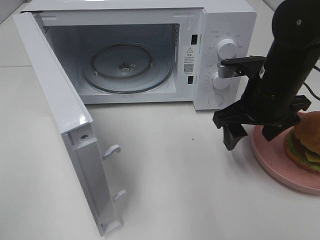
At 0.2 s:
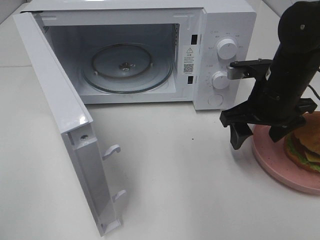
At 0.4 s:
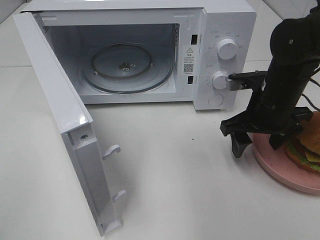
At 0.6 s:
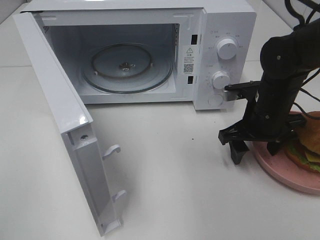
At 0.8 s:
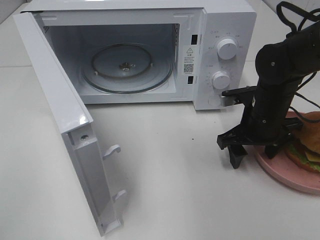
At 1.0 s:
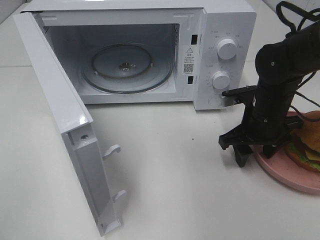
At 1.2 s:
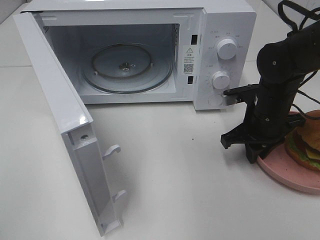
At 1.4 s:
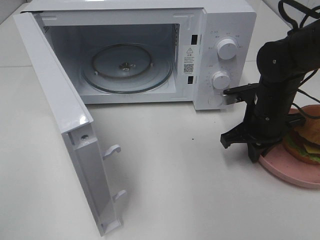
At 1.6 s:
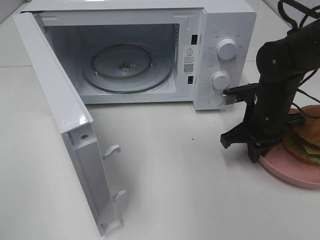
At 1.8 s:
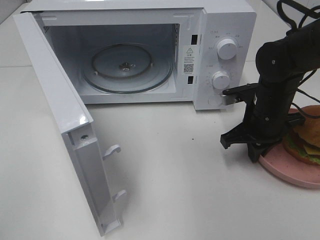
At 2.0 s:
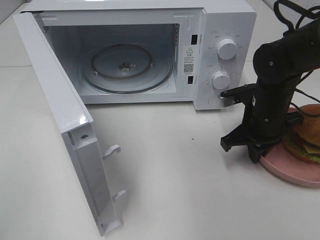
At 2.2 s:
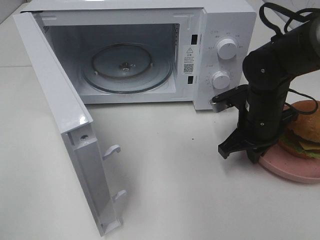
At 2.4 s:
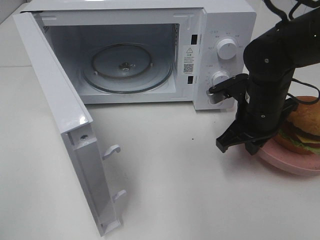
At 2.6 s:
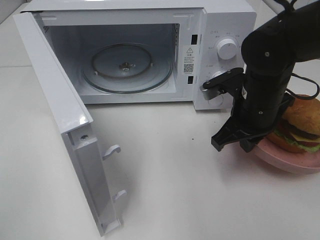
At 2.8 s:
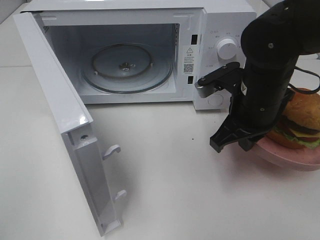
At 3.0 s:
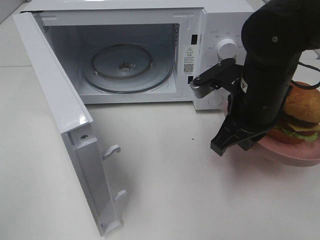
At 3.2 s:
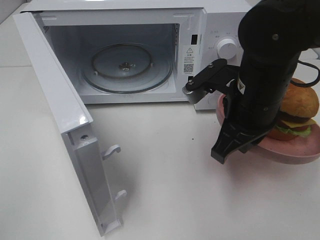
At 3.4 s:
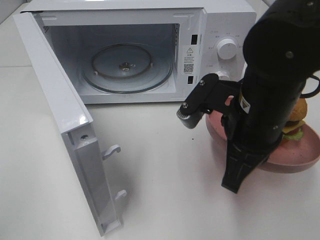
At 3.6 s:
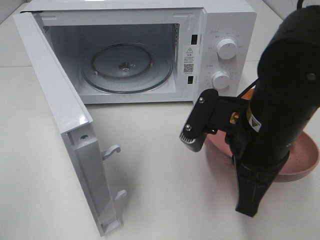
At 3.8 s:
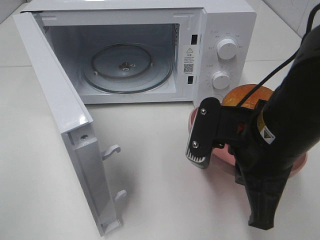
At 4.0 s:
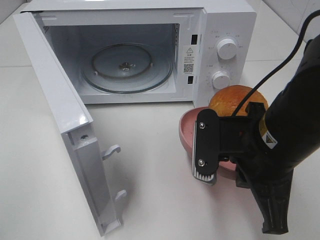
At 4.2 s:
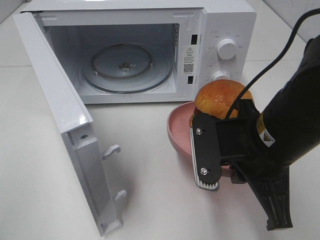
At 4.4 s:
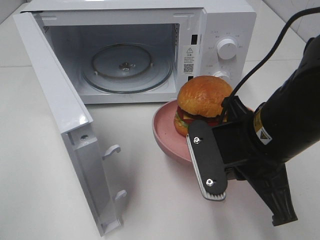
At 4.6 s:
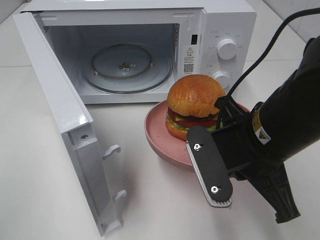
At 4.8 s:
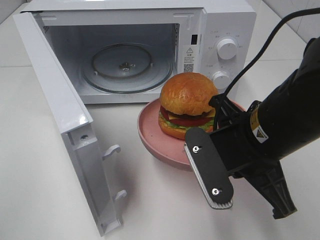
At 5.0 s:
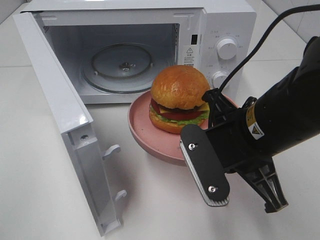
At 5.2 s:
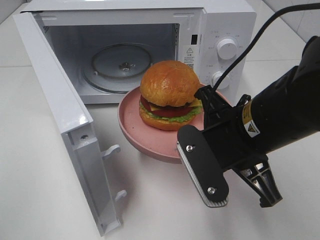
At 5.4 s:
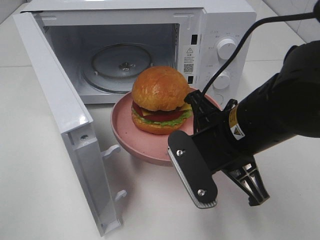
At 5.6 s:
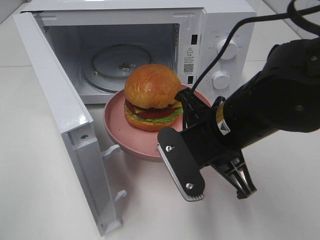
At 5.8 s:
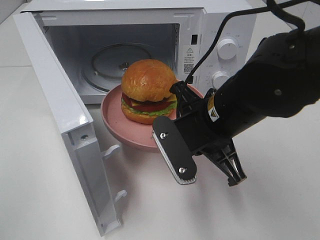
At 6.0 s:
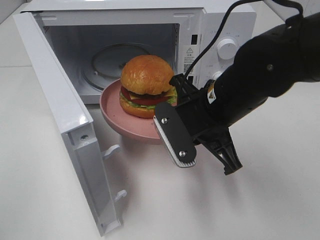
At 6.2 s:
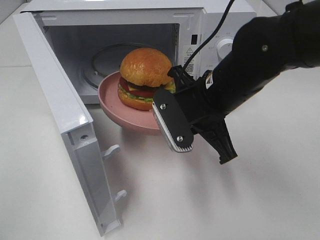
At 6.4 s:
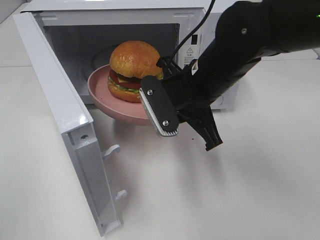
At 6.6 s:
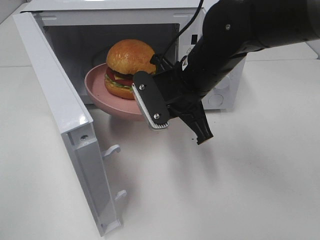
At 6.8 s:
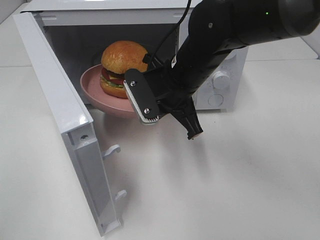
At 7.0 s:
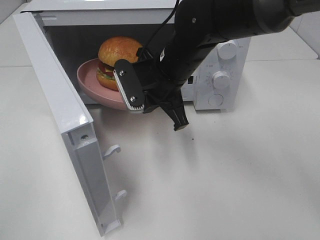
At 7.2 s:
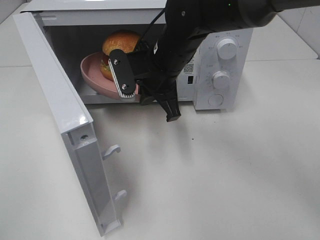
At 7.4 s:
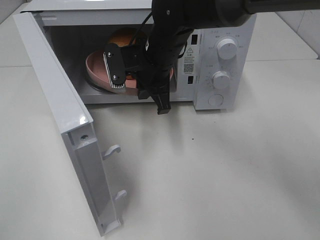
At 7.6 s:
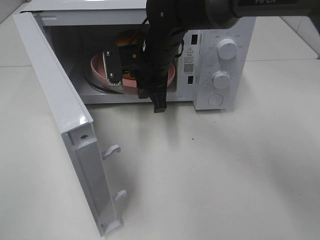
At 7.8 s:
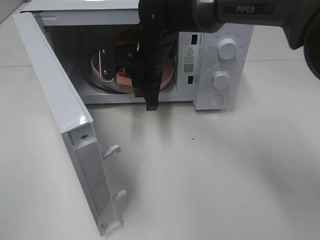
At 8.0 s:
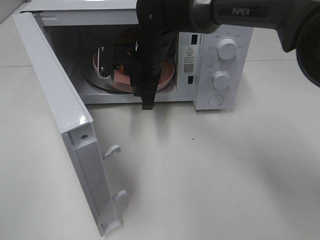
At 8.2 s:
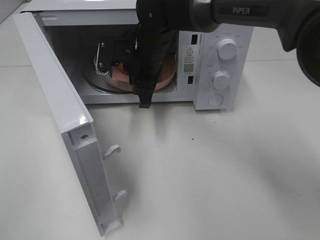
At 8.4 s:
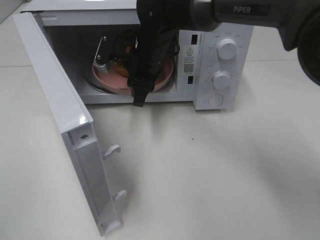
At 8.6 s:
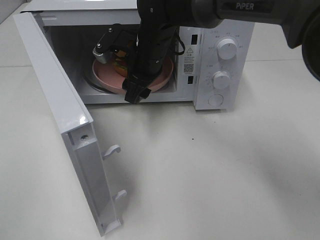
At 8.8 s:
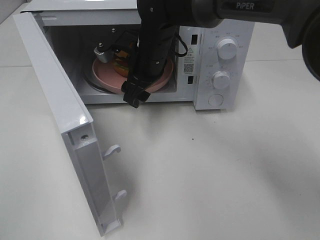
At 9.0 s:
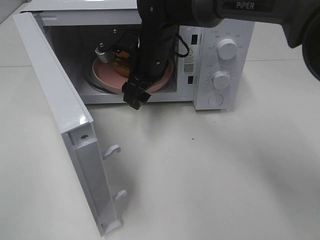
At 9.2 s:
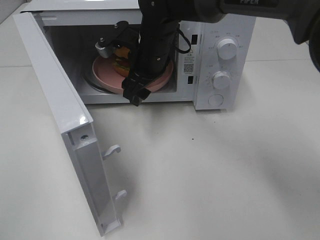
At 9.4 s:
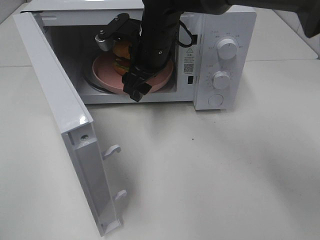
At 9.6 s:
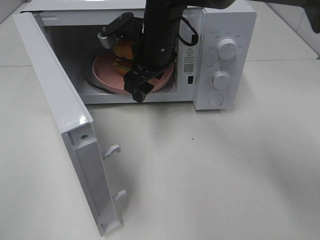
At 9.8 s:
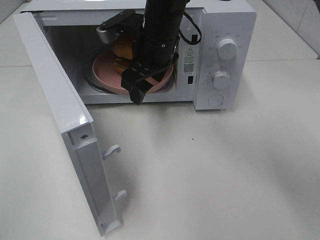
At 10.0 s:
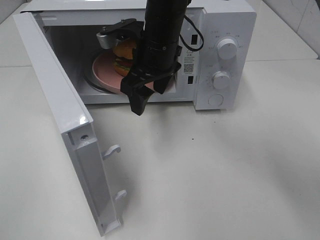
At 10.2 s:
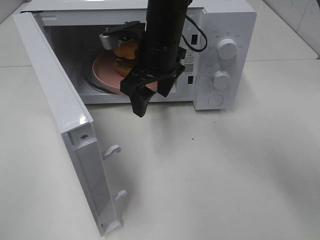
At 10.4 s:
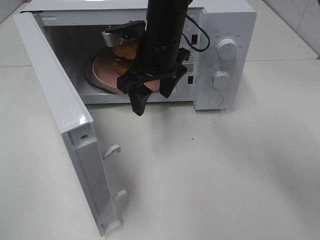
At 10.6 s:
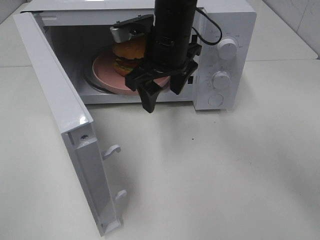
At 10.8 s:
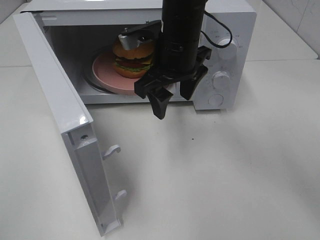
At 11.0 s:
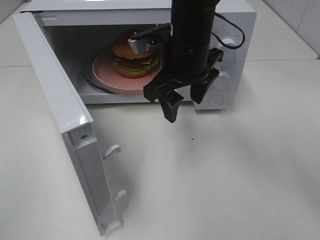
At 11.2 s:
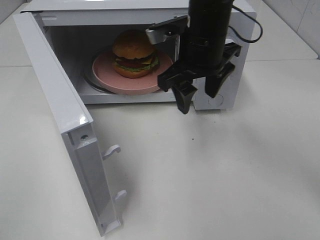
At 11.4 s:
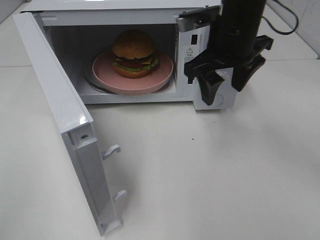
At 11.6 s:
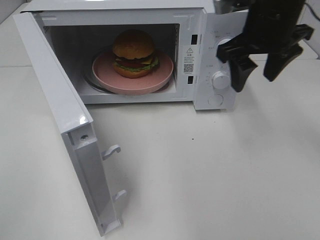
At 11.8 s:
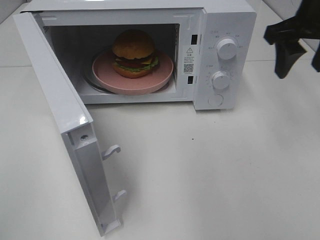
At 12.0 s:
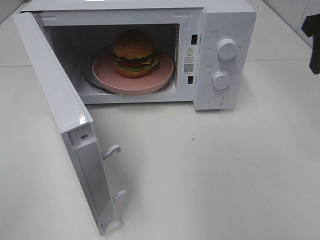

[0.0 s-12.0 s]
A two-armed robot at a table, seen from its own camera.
Task of the whole recording: Heat the burger.
Step, 2.0 to 8.4 s: Right hand: place the plate in the microwave.
0.0 to 1.6 s: The right gripper goes about 10 cm downward, and closes its fingers.
1.6 to 3.0 s: The right gripper shifts some 10 cm upward, to the left and backward.
3.0 to 4.4 s: The right gripper is displaced backward by about 10 cm.
4.4 to 6.0 s: The right gripper shifts about 5 cm forward.
6.0 to 7.6 s: The right gripper shifts some 15 cm forward and to the left.
7.6 to 9.0 s: The right gripper opens its fingers.
9.0 to 10.4 s: The right gripper moves about 5 cm.
10.4 to 12.0 s: The right gripper heads to the right, covering approximately 30 cm.

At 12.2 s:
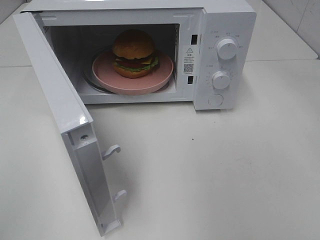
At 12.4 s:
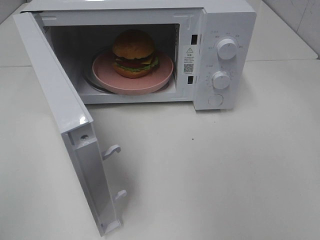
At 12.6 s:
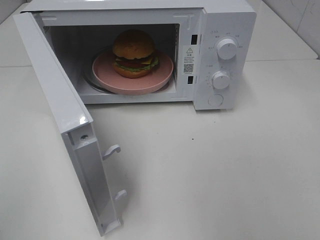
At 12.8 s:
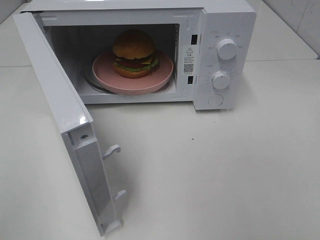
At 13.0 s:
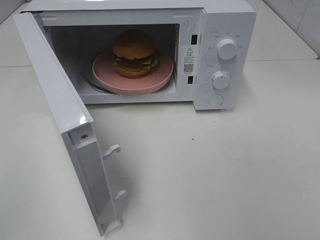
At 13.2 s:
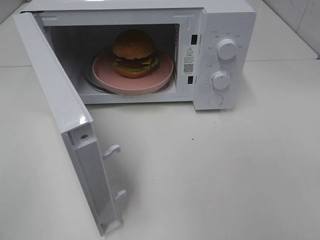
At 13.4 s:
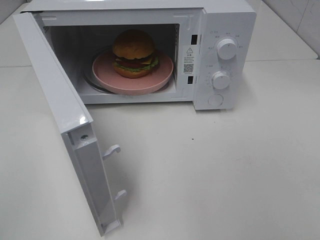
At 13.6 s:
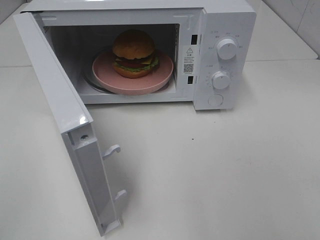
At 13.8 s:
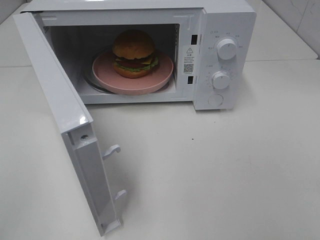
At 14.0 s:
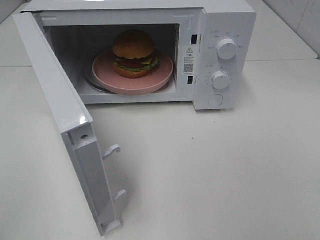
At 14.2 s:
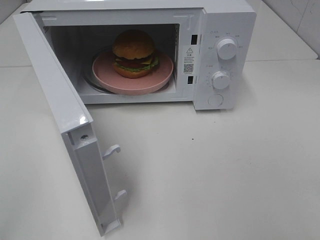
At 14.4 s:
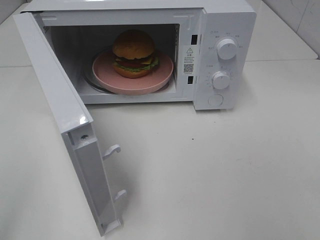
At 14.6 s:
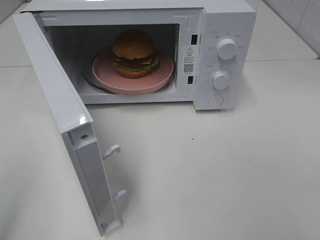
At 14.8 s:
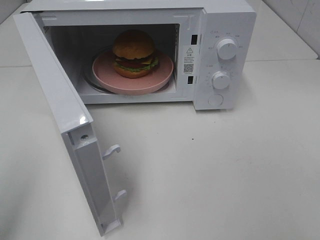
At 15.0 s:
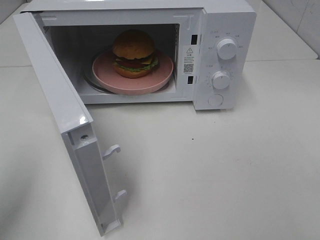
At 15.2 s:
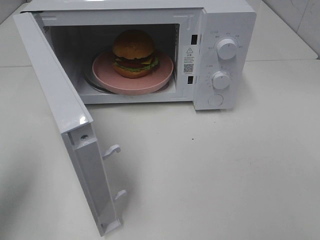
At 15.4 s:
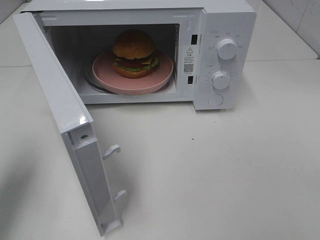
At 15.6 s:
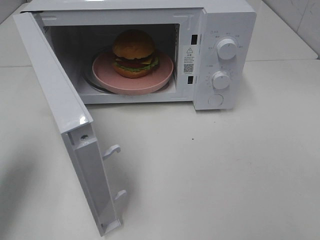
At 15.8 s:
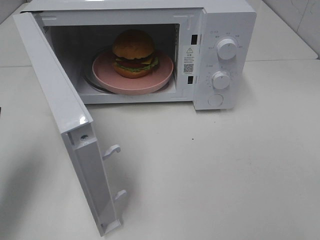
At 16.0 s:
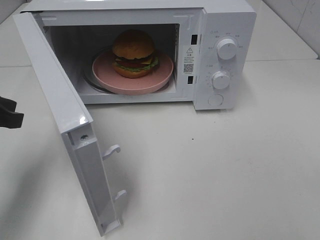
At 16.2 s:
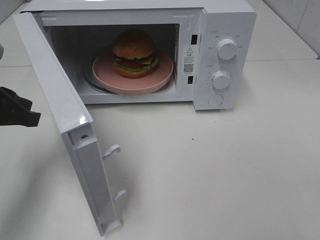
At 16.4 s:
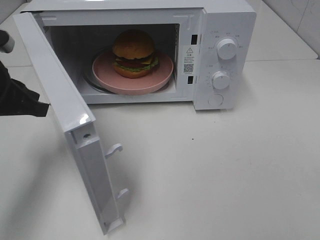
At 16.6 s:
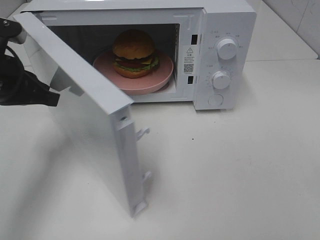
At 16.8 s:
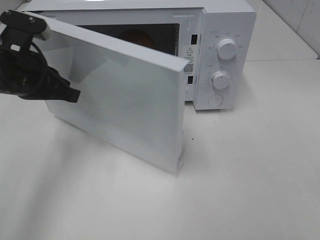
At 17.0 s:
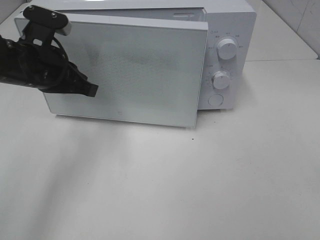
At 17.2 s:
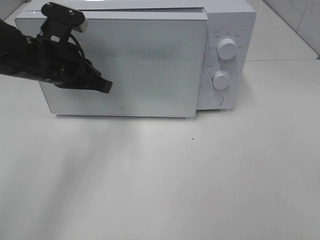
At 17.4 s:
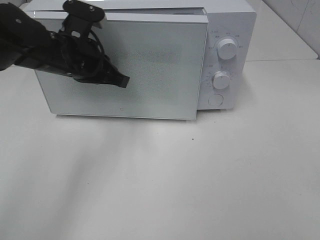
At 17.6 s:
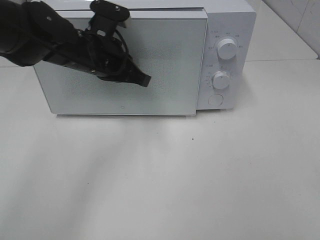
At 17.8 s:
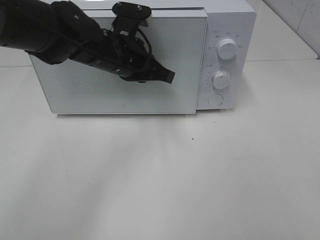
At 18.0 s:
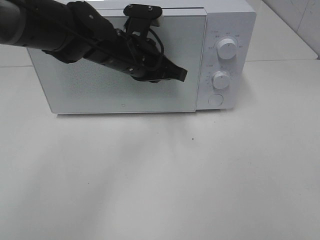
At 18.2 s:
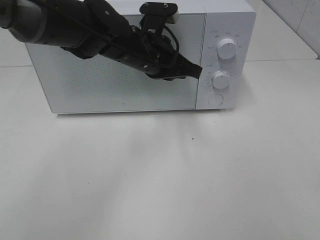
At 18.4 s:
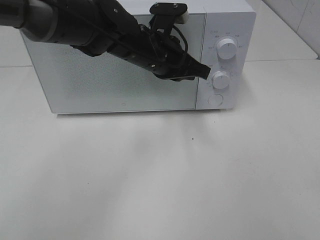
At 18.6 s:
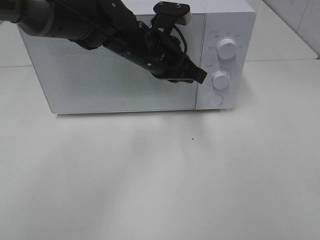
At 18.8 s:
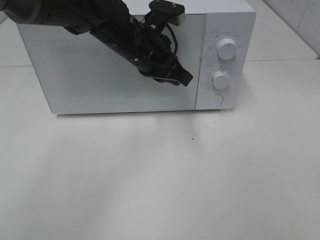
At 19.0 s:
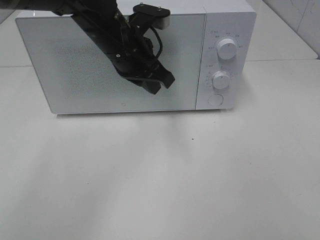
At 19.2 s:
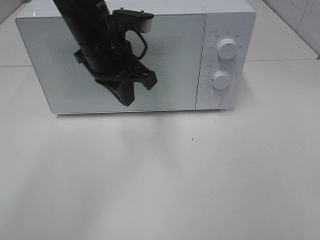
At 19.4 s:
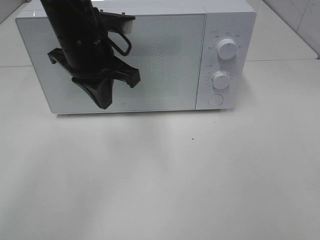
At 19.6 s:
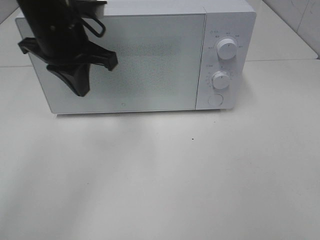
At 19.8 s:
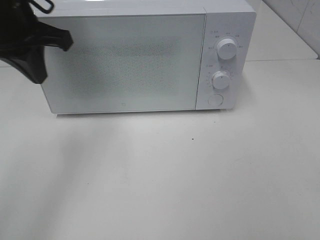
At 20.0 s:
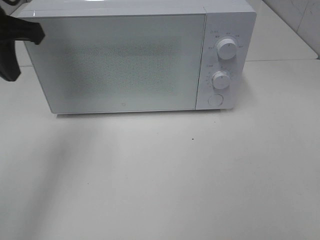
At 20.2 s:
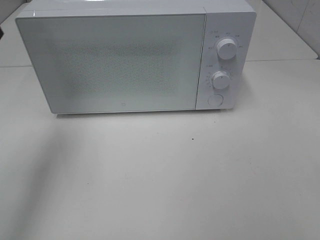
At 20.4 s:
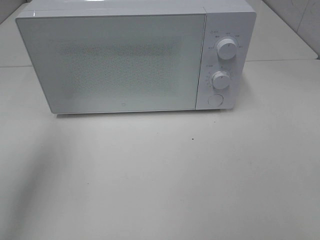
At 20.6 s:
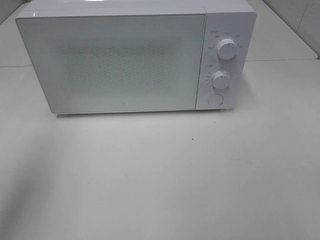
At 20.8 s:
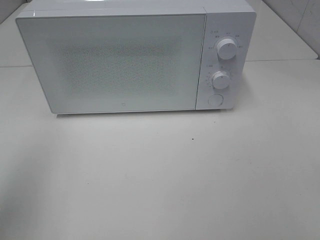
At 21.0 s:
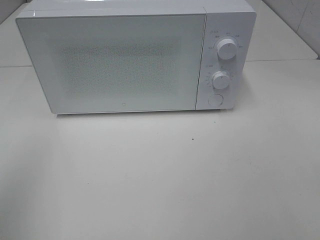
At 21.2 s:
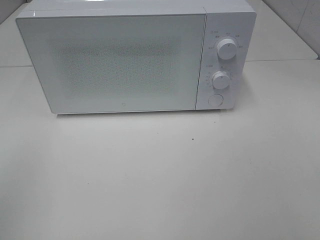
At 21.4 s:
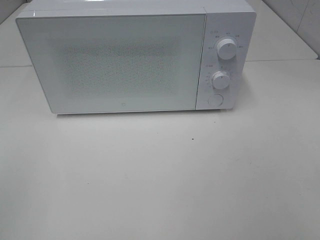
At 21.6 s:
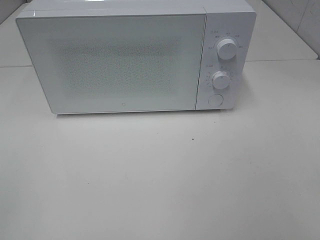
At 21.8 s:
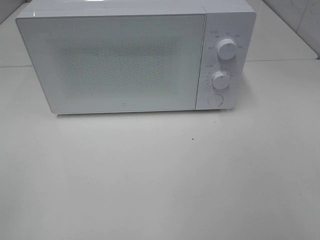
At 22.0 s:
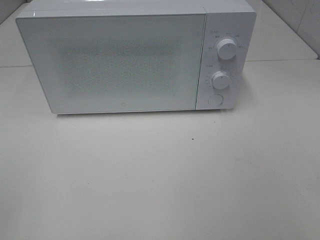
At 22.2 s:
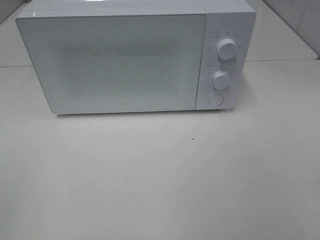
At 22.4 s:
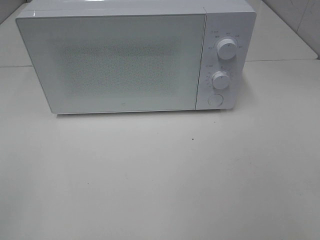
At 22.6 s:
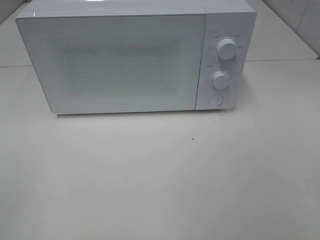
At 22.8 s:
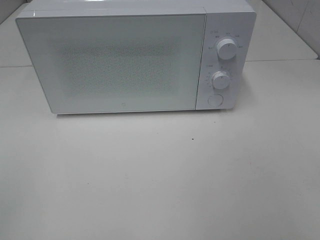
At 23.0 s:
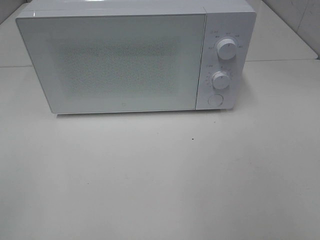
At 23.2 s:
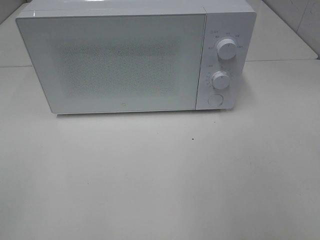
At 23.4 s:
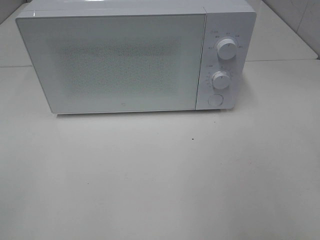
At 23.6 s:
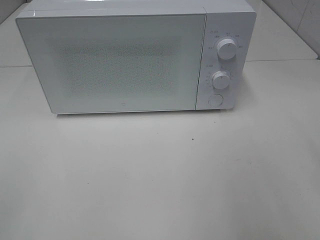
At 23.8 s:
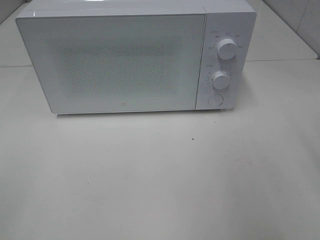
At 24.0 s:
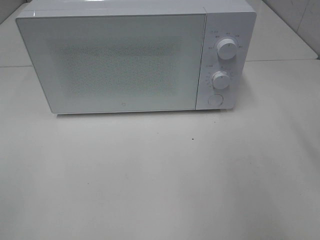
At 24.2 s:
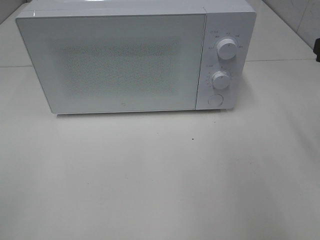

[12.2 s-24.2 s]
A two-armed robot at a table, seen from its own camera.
Task of the whole recording: Heat the burger.
Step, 12.2 to 18.4 s: Left hand: close the microwave door.
13.8 to 15.2 s: The left gripper heads forward, covering roughly 15 cm.
15.2 to 16.6 s: The left gripper travels forward, to the right and downward by some 15 cm.
16.6 to 18.2 s: The left gripper heads to the right and forward, covering about 25 cm.
18.2 to 19.8 s: The left gripper travels to the left and upward by approximately 20 cm.
19.8 to 21.2 s: The left gripper moves backward and to the left, approximately 30 cm.
